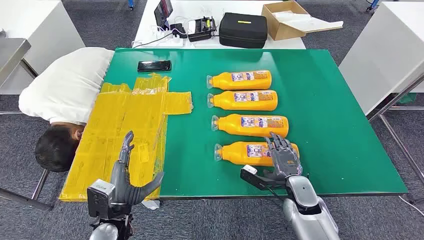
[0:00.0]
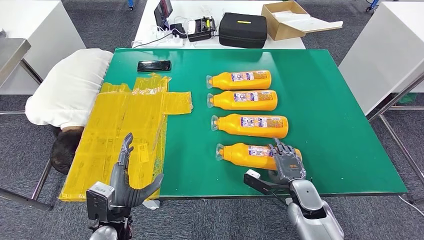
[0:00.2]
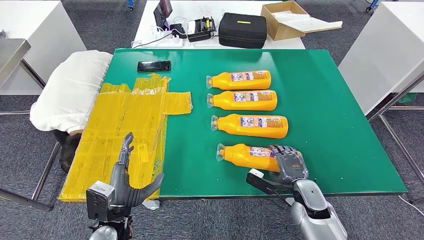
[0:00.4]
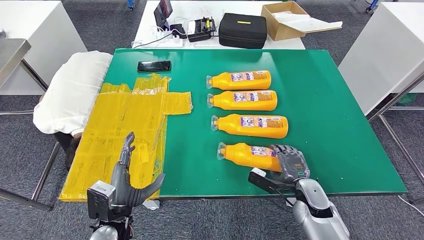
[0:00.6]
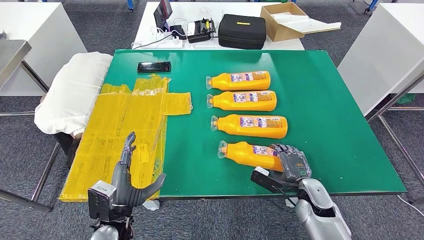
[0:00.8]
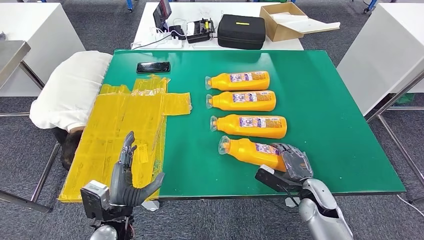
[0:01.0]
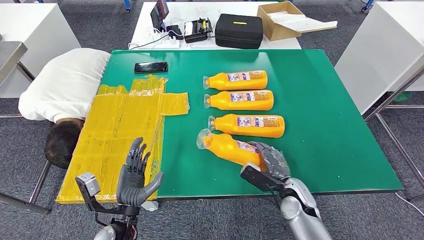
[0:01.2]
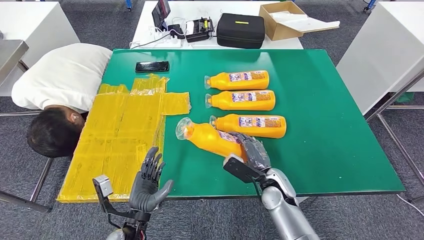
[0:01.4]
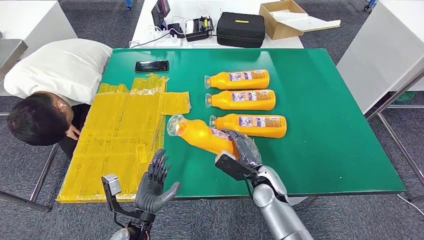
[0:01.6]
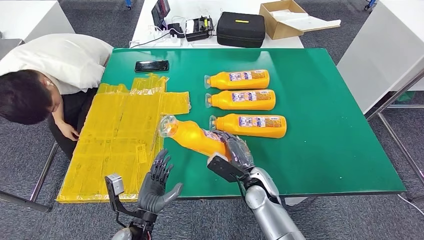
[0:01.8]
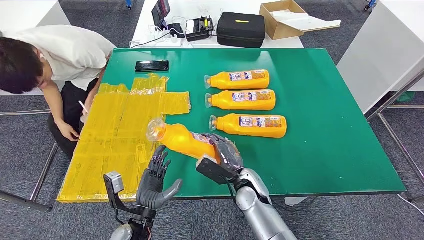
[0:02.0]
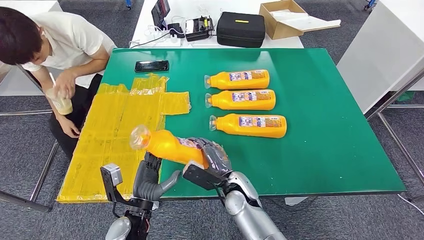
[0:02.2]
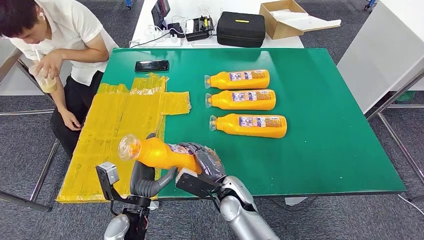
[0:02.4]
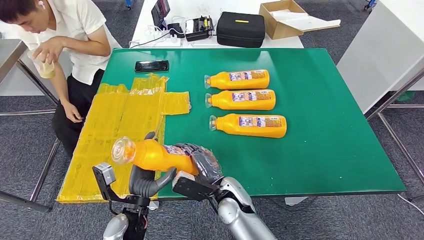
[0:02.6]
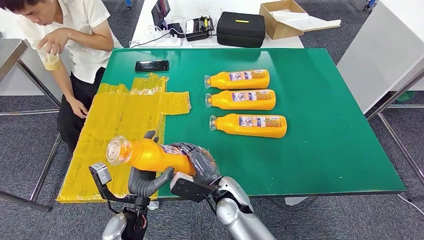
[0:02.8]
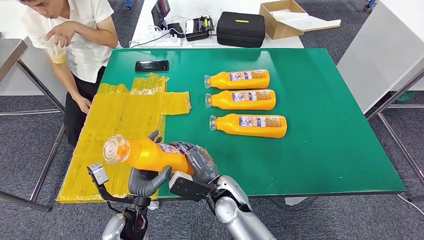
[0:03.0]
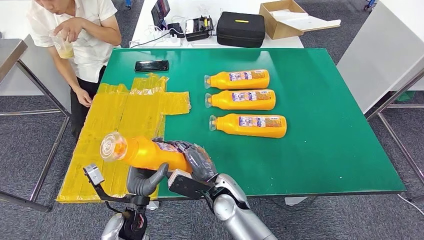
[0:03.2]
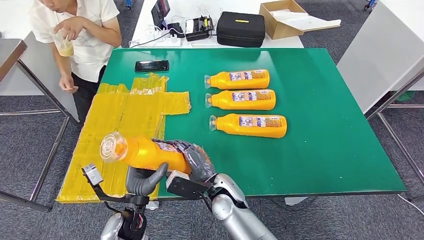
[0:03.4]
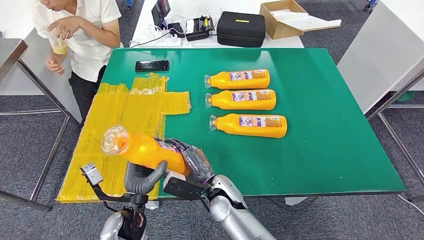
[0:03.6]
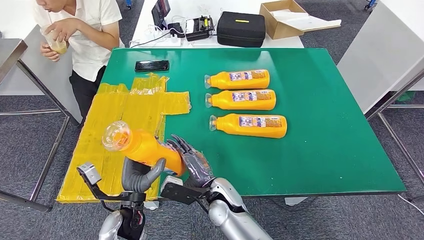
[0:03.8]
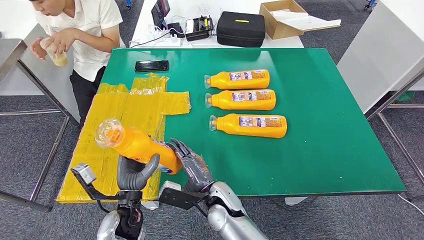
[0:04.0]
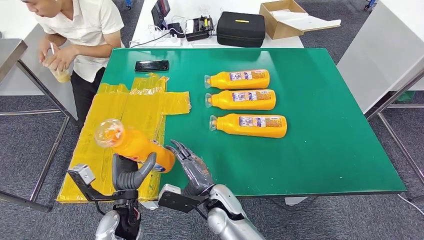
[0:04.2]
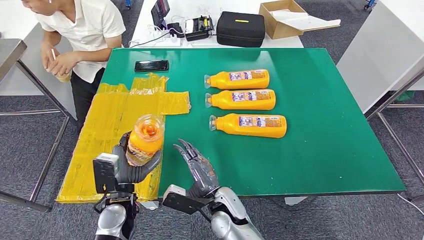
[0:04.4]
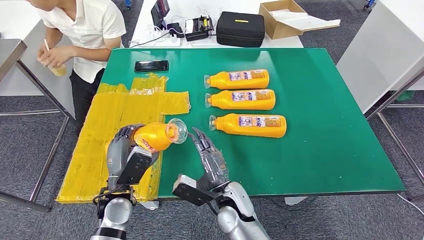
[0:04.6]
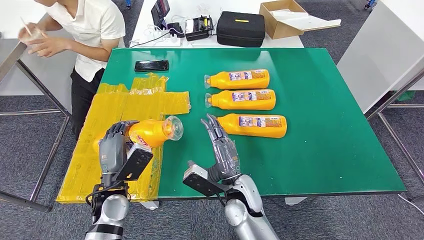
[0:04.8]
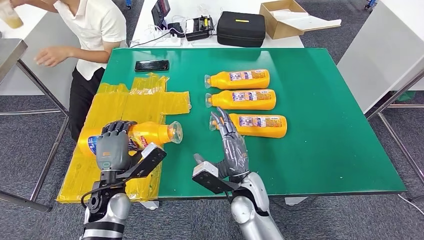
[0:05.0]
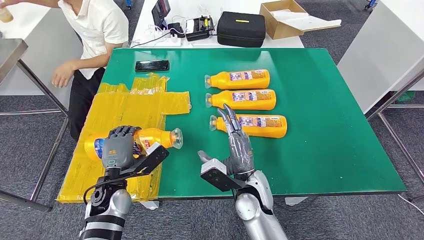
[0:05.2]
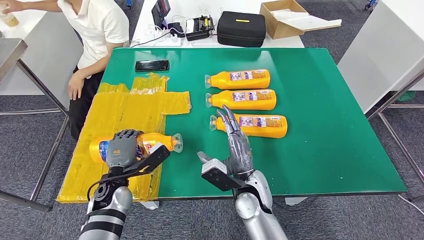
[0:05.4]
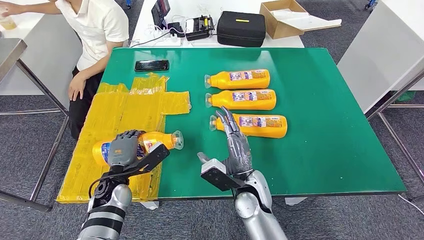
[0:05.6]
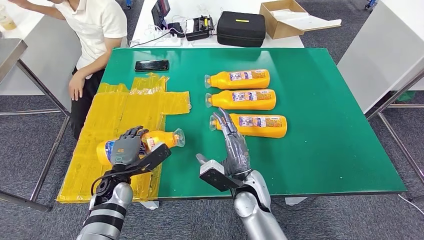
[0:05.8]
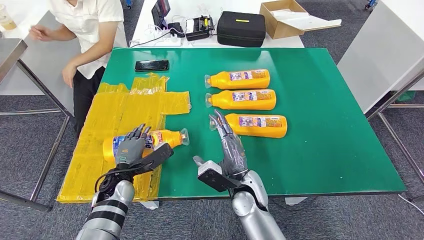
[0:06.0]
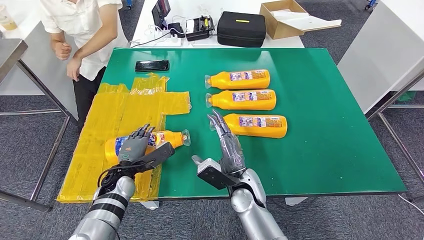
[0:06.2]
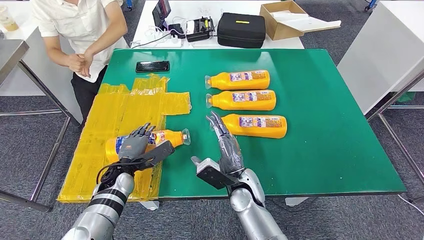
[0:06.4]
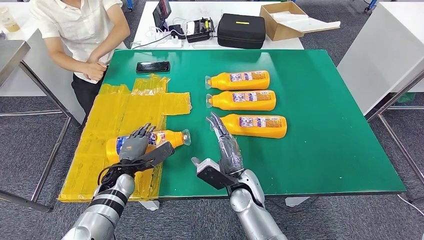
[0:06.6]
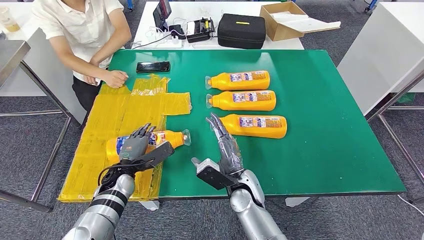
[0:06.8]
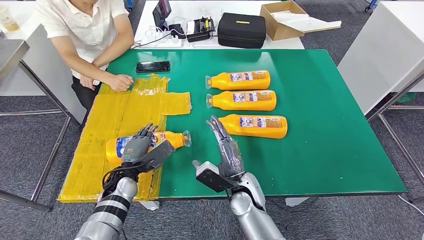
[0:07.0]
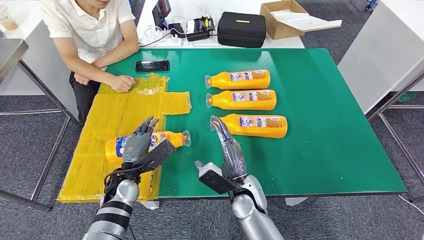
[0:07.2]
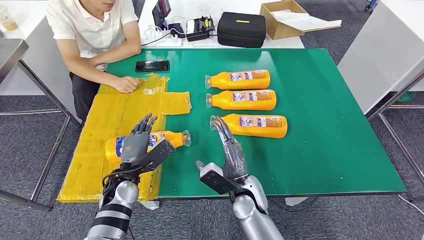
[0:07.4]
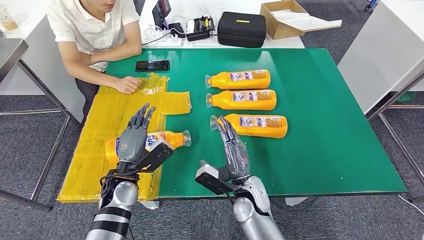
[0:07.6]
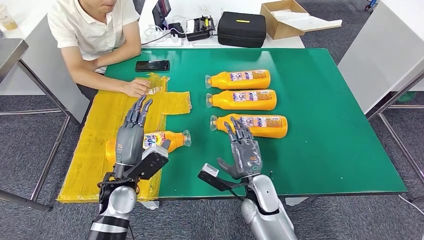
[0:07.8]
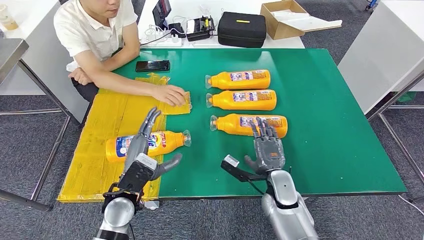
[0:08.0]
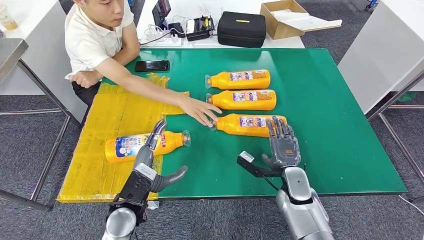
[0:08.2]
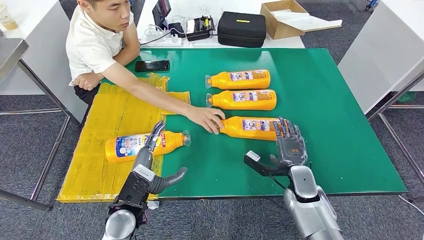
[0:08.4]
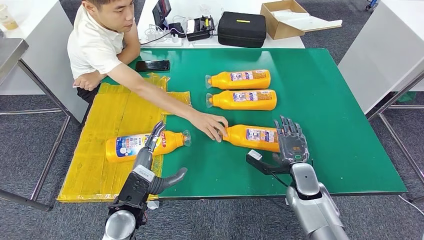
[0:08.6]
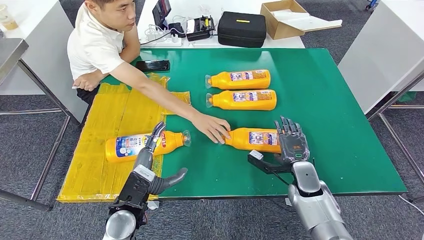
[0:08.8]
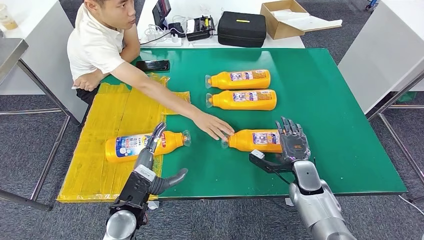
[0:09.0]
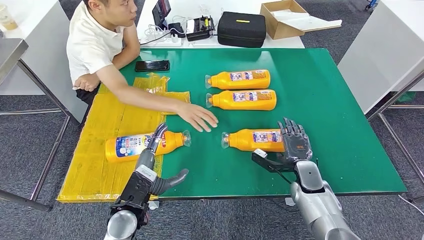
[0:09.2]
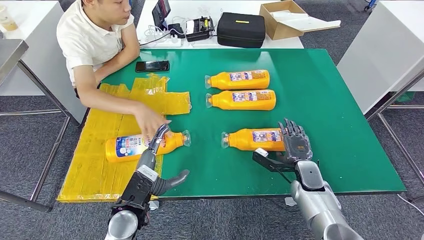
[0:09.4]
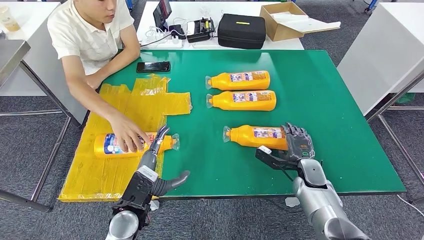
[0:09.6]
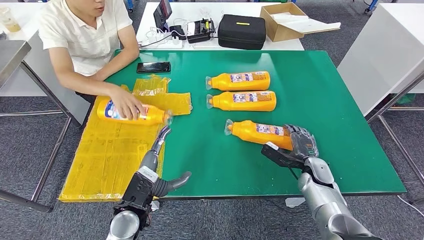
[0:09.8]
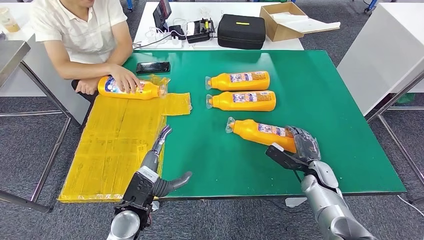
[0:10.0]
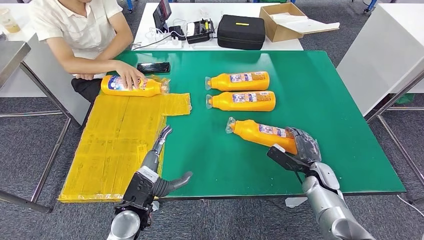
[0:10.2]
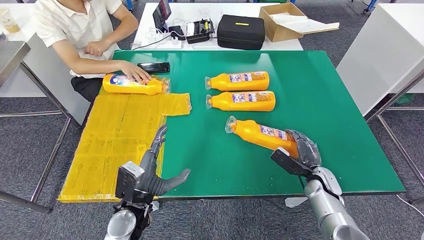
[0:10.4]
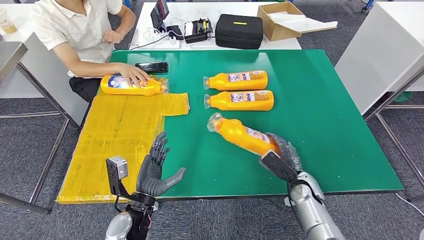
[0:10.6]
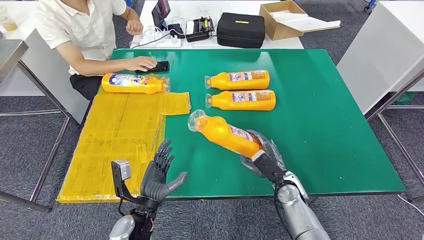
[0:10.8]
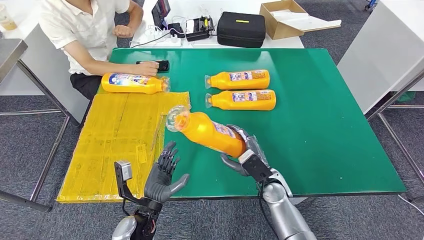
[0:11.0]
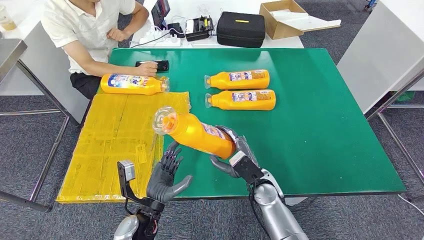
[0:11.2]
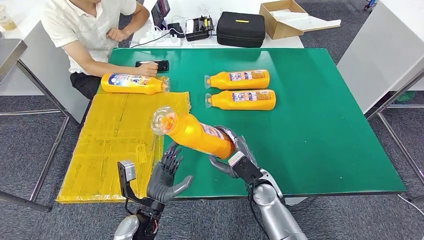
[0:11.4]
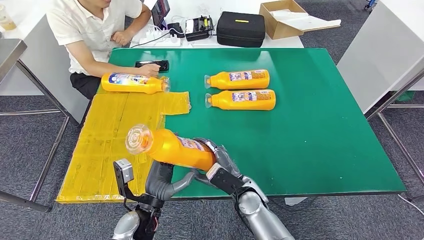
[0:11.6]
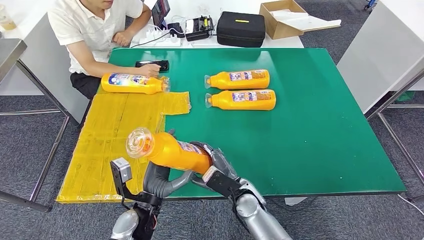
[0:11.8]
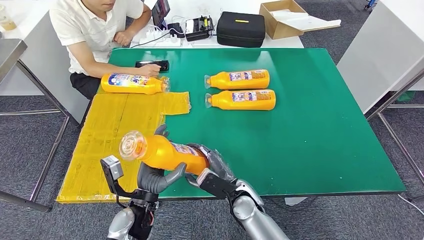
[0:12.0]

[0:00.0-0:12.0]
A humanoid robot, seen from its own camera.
Step, 0:00.0 to 0:03.0: Take the fast-moving consumer goods bottle from the table.
Step, 0:03.2 to 0:06.8: Flip the fast-moving consumer goods bottle to the front side.
0:04.4 to 0:06.0: The left hand moves forward, approximately 5 cm. Meanwhile the right hand goes some 5 cm to the right.
0:06.0 to 0:07.6: The left hand shifts by some 5 cm.

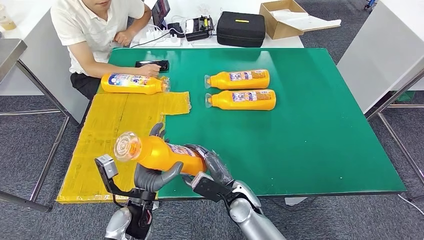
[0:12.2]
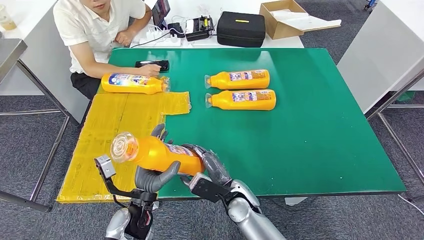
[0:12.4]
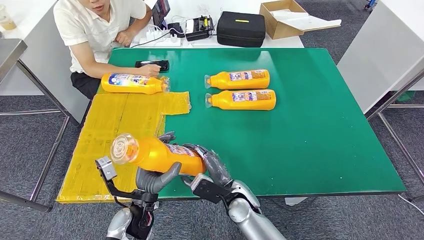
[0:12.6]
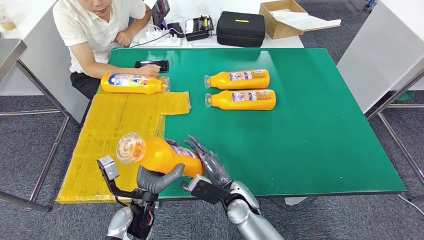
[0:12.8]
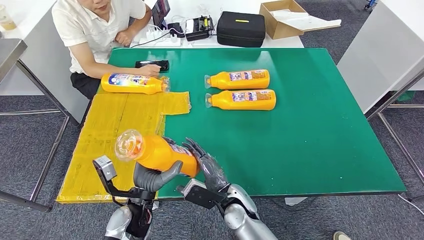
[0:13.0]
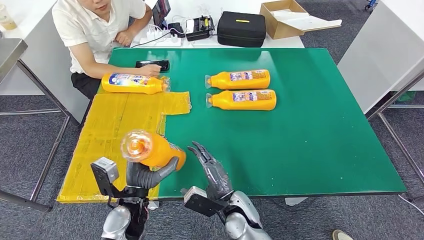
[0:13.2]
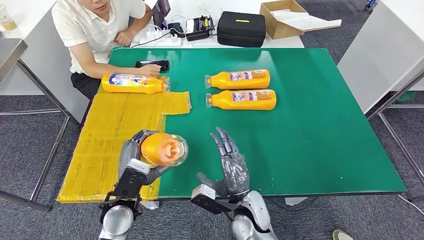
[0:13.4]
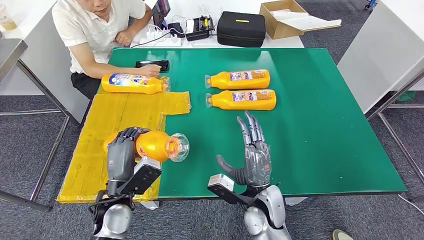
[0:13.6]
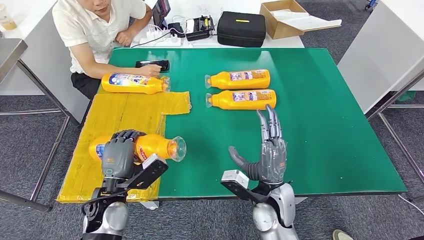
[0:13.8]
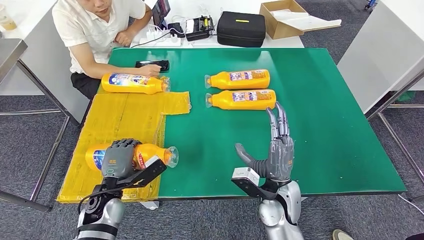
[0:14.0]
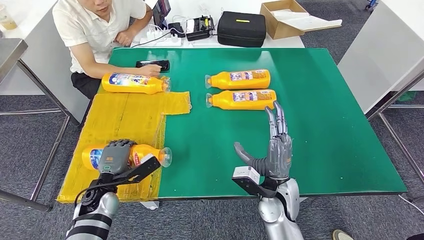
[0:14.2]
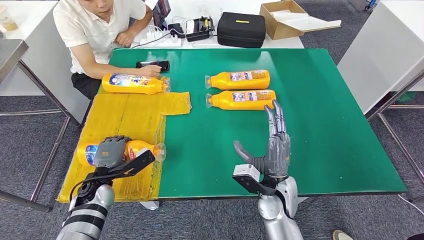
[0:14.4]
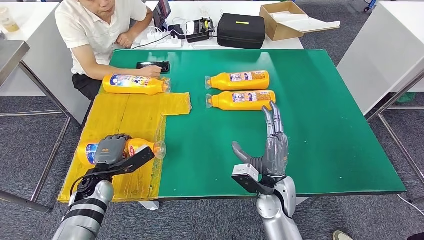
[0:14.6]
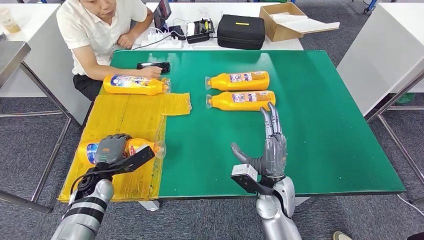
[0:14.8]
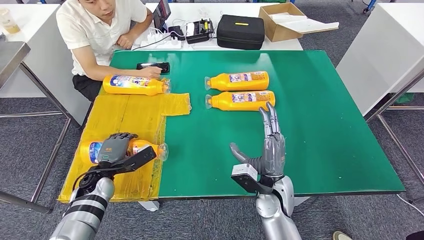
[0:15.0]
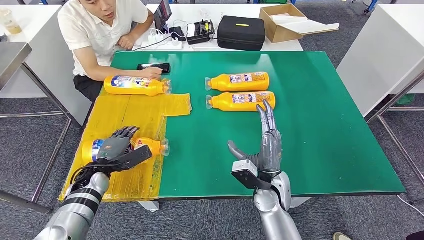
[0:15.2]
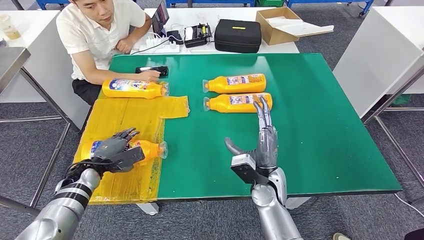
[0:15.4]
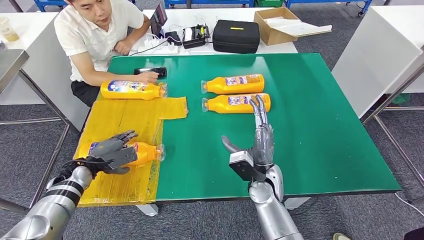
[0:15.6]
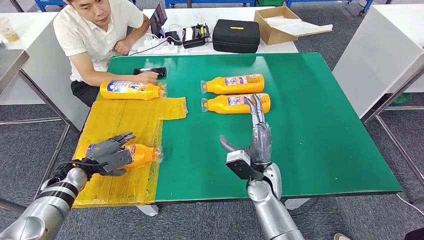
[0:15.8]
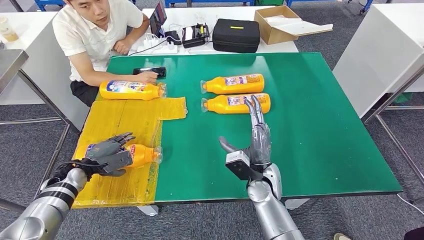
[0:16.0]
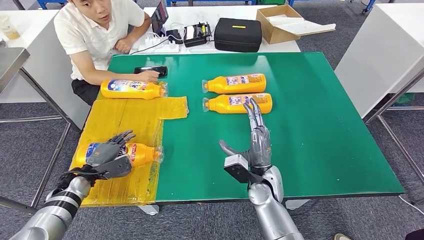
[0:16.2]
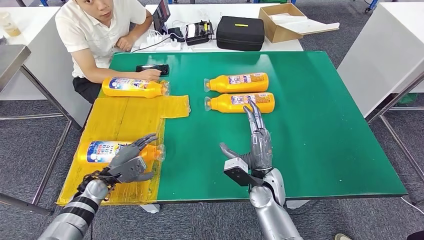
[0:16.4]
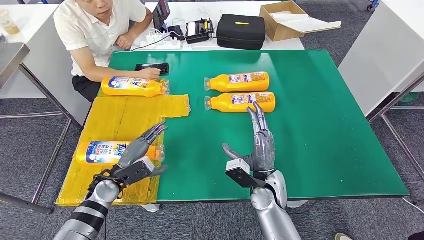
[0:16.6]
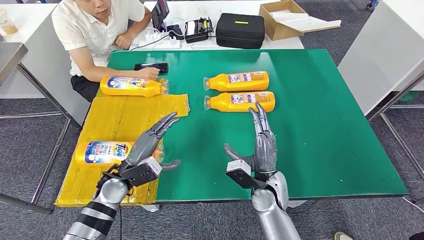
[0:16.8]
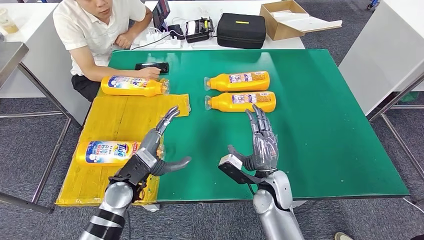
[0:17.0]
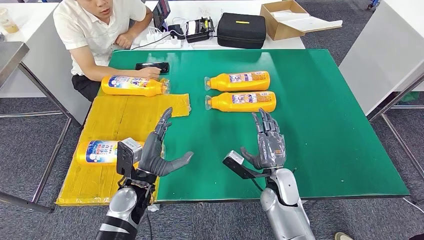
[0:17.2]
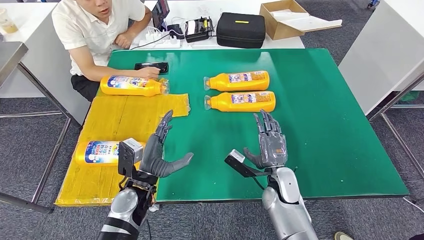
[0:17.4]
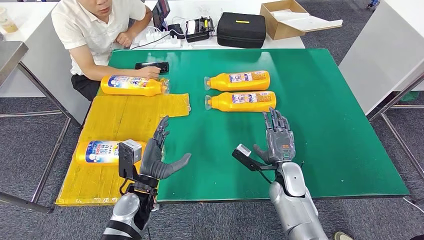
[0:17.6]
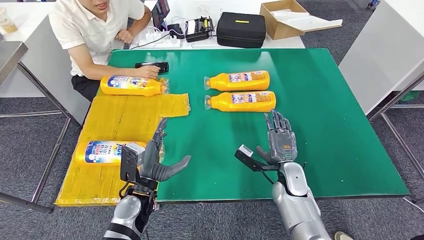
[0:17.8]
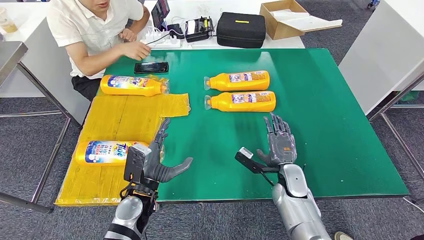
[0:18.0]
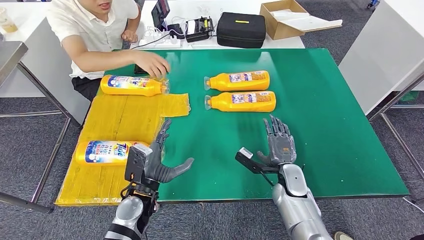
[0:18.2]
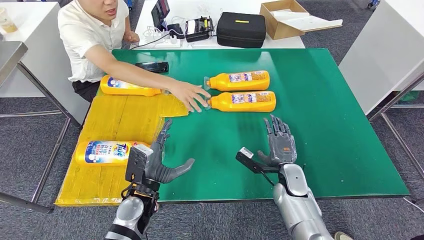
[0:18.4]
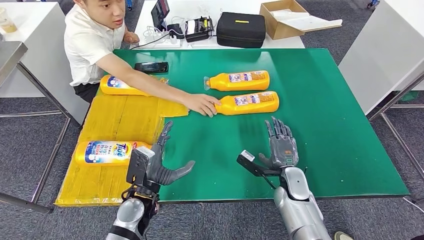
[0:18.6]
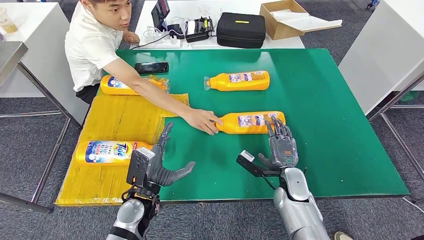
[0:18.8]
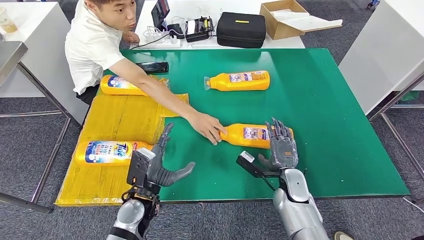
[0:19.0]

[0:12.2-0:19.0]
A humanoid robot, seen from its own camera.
Step, 0:13.0 to 0:17.0: Flip the fast-moving consumer goods bottle to the front side.
0:12.2 to 0:13.6: The right hand moves upward, some 5 cm. Meanwhile the left hand changes place by roughly 5 cm.
0:17.6 to 0:19.0: The hands make only small movements.
